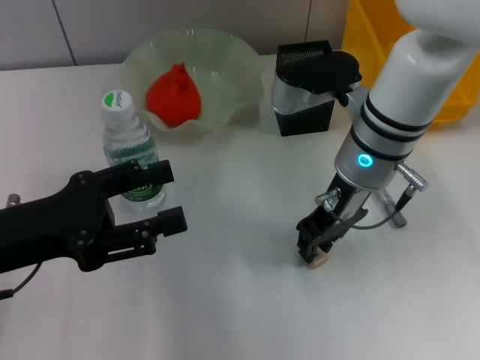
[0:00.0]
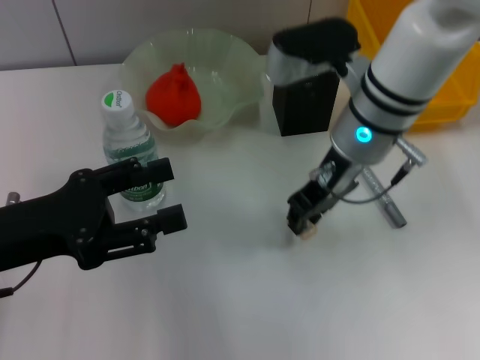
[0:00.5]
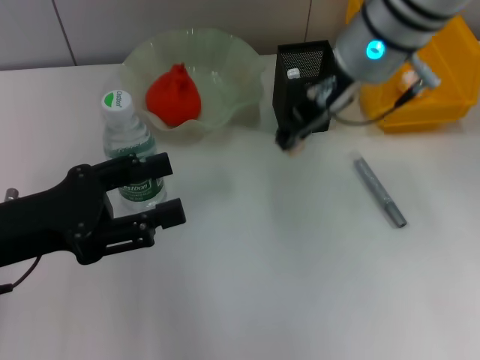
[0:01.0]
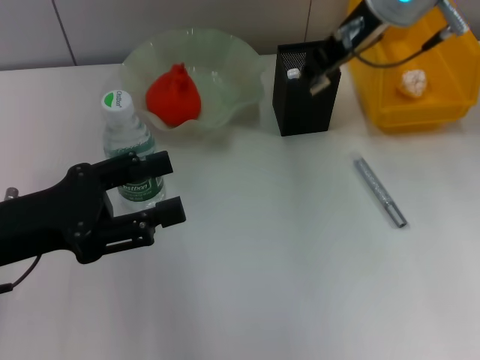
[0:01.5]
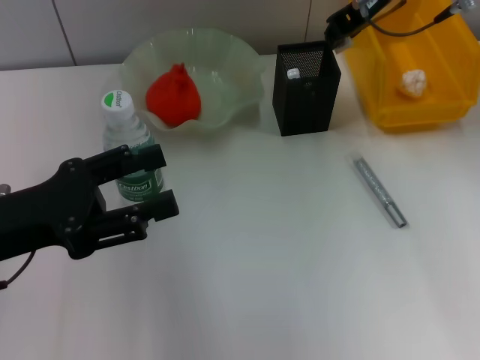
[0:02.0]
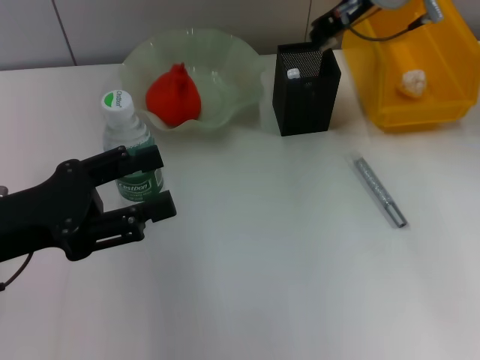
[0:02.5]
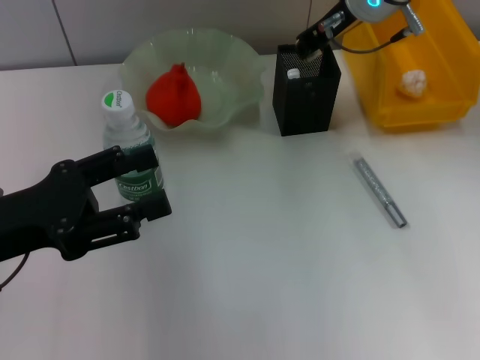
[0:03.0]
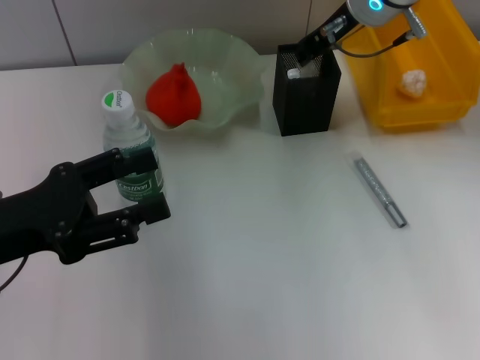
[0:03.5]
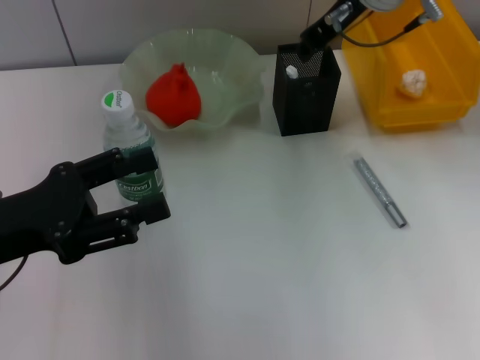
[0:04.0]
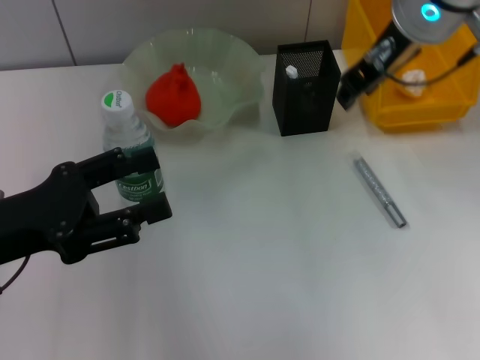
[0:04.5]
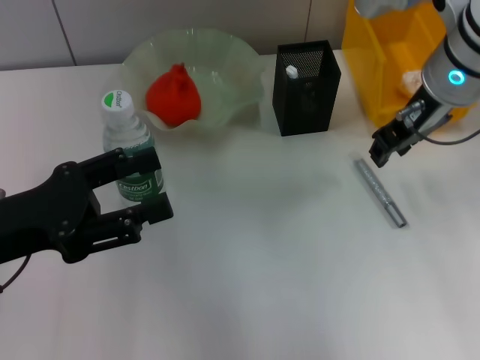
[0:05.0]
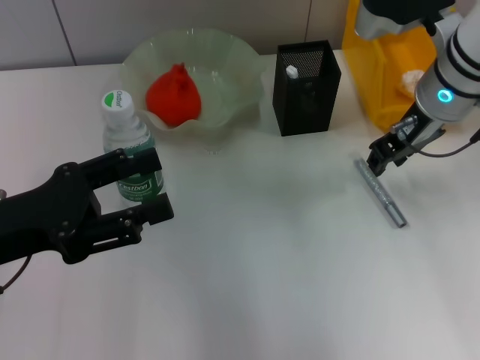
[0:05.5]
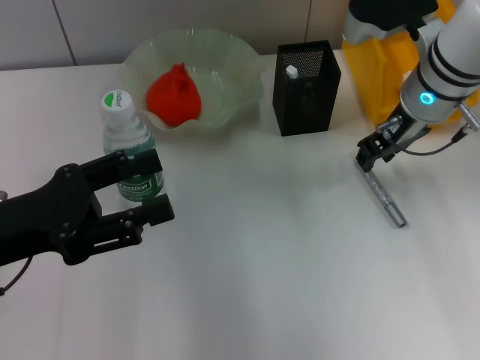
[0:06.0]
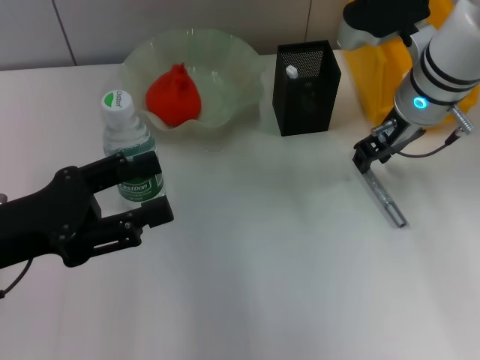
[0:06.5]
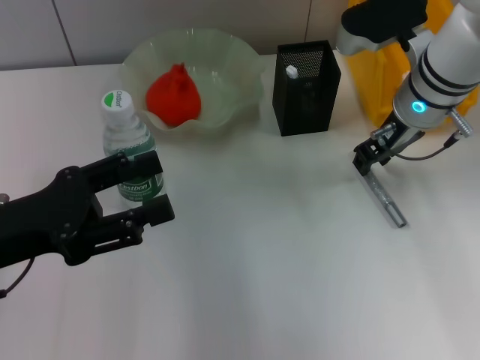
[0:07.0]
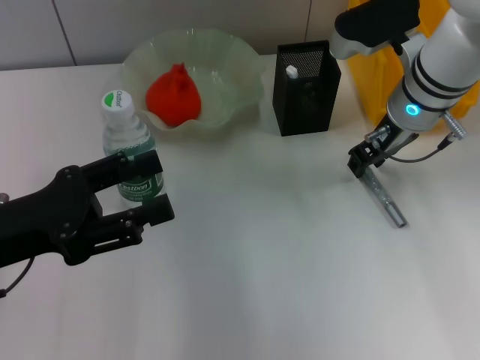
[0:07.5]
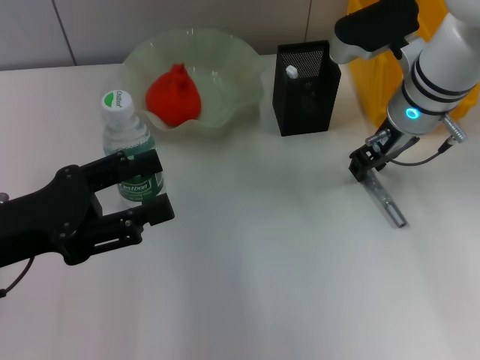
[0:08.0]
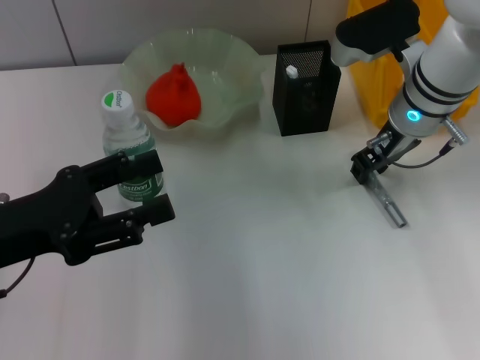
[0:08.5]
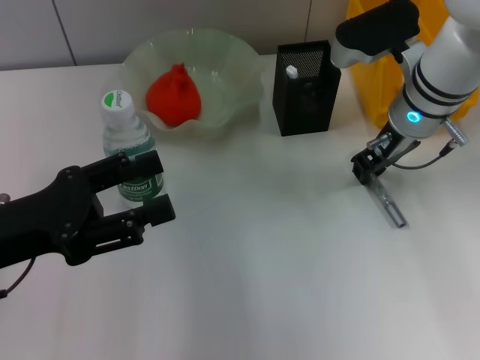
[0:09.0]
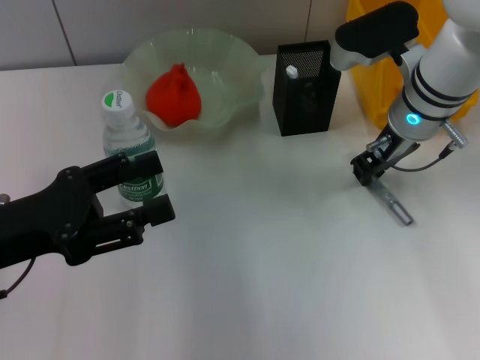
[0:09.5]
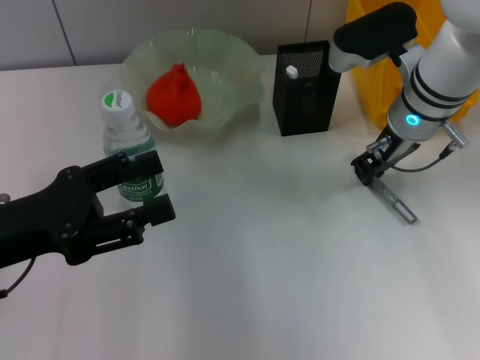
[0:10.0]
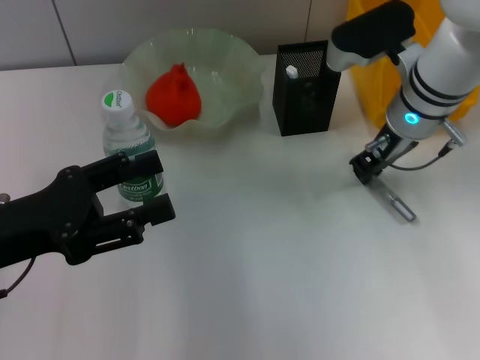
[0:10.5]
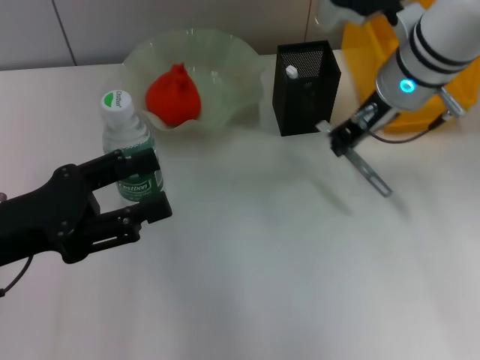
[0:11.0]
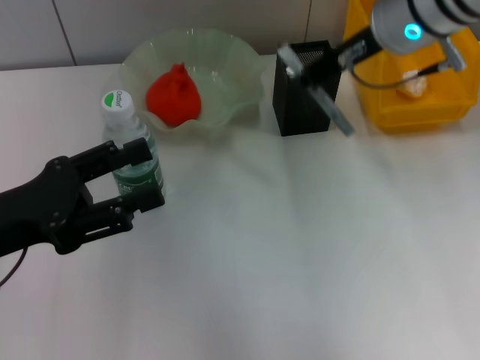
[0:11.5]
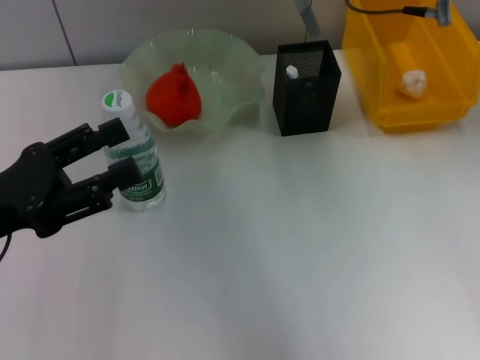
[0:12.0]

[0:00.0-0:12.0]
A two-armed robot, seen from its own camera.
Step, 0:00.5 to 0:04.0: Put the eraser into the pen holder with the right hand.
Step, 0:04.5 to 0:09.5: Grab the gray glue with the right hand.
0:00.0 to 0:02.0: The right gripper goes some 15 cm upward and forward.
0:02.0 to 0:04.0: There are only small adjustments of the grippers.
0:04.0 to 0:06.0: The right gripper moves downward, some 10 cm.
0:06.0 to 0:08.0: There are only small adjustments of the grippers.
0:08.0 to 0:10.0: Both grippers stay about where they are.
0:10.0 to 0:12.0: The right gripper heads upward, covering some 10 cm.

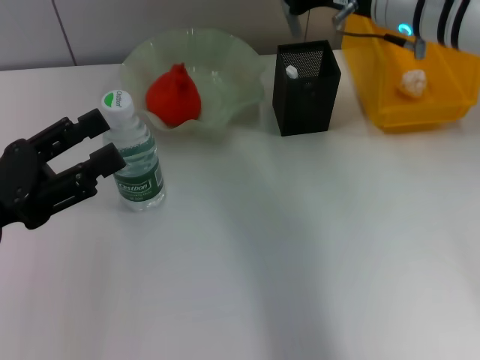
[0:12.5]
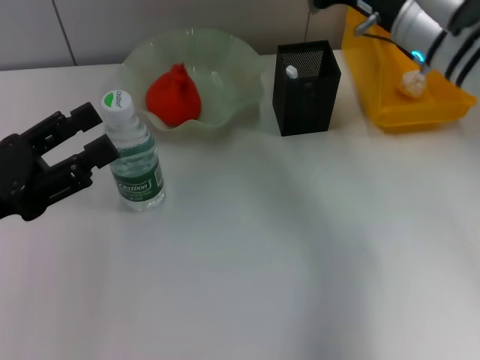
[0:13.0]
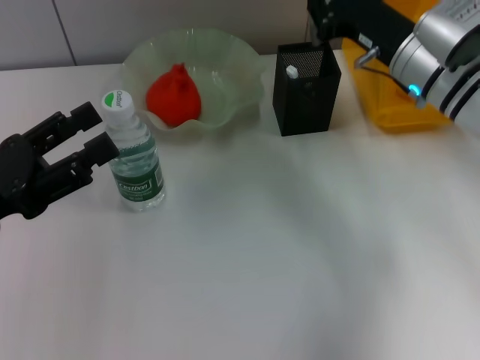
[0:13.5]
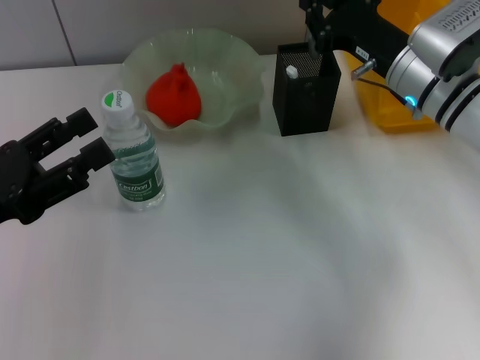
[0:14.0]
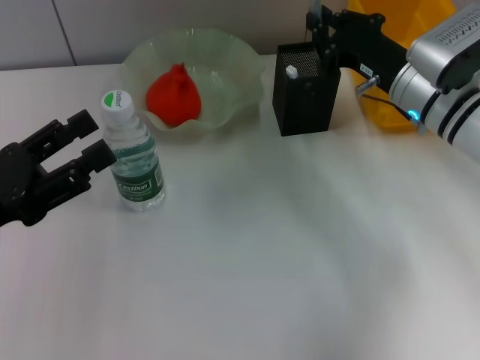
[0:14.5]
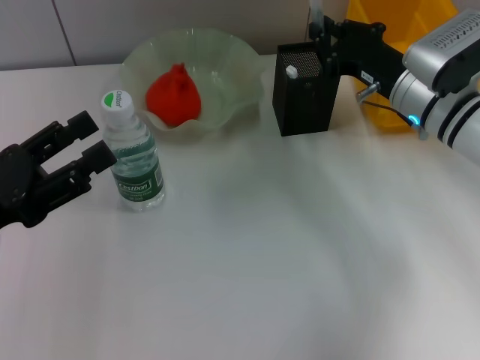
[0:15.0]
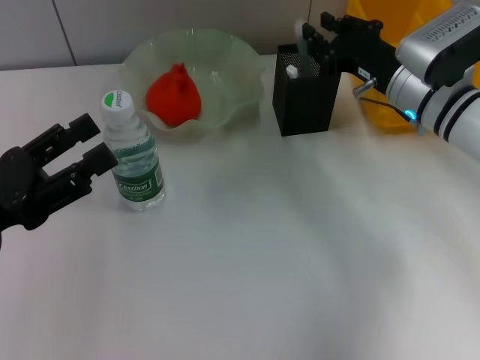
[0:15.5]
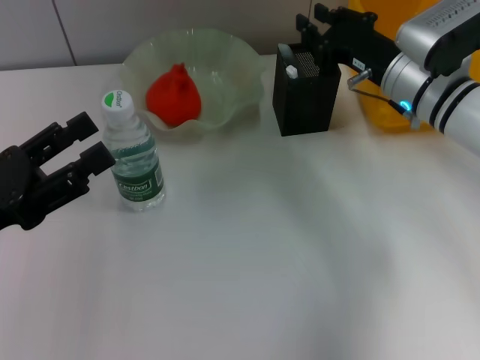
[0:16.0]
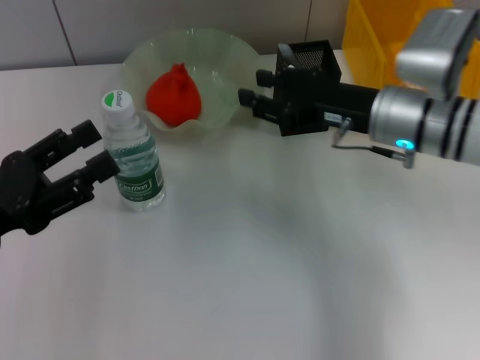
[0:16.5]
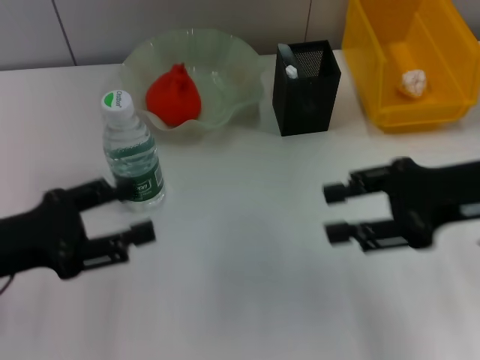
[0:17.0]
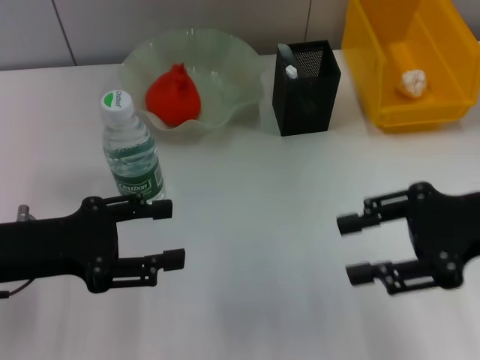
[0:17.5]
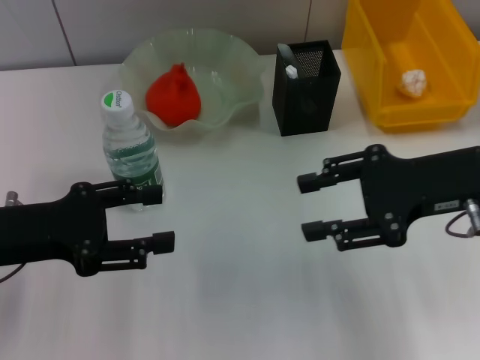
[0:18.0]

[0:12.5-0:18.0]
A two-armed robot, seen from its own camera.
Step, 0:12.5 to 0:16.0: Place the gray glue into the pen holder with the right hand.
0:12.5 to 0:14.5: The right gripper moves downward, some 10 cm.
0:14.5 to 0:16.0: Both grippers stay about where they are.
0:16.0 to 0:18.0: The right gripper moves backward and upward, some 15 cm, and opens its fingers.
